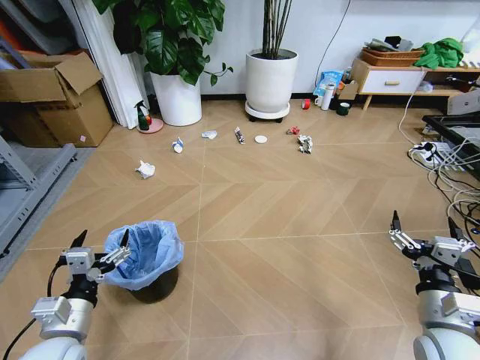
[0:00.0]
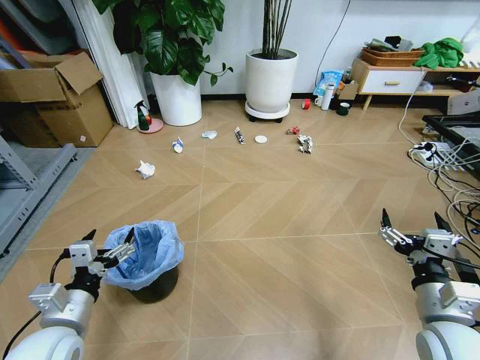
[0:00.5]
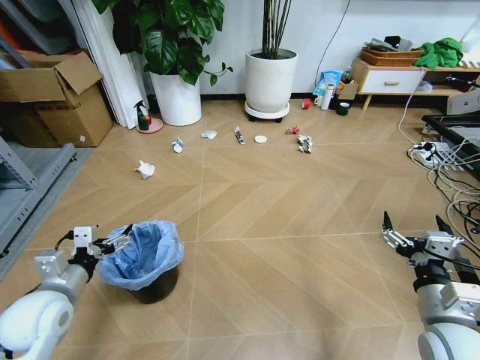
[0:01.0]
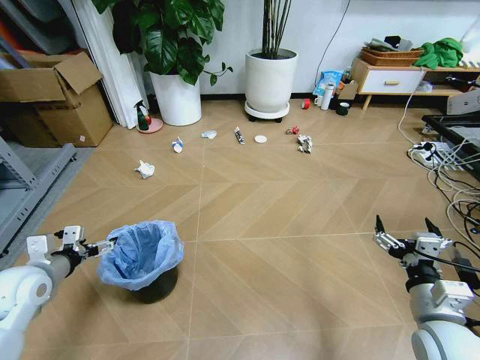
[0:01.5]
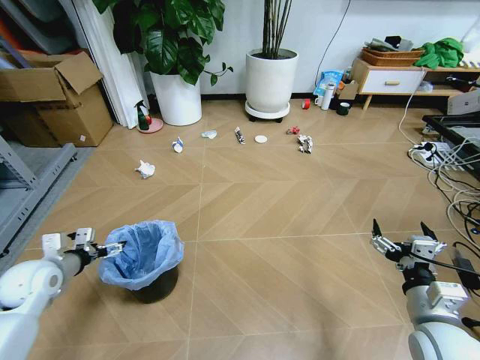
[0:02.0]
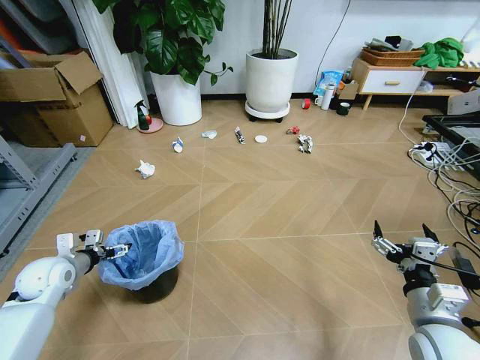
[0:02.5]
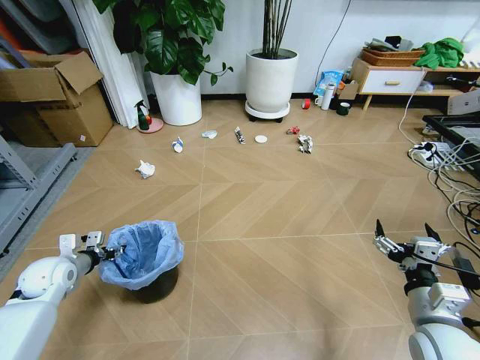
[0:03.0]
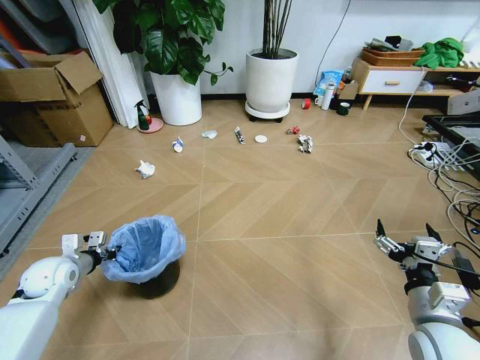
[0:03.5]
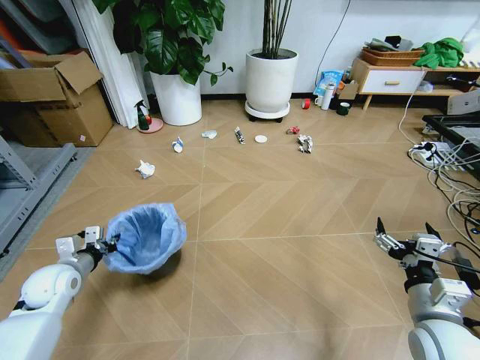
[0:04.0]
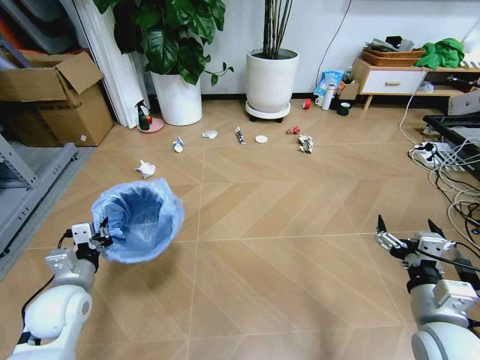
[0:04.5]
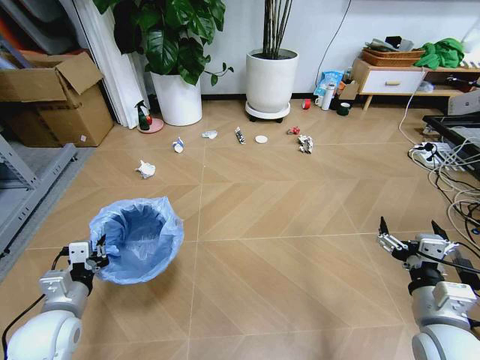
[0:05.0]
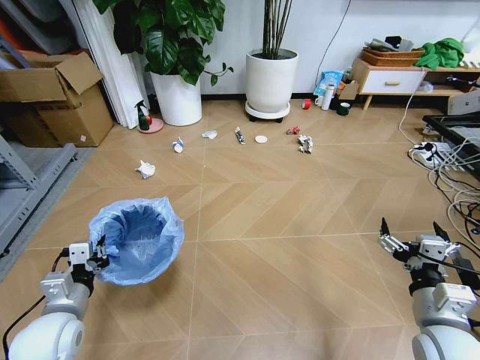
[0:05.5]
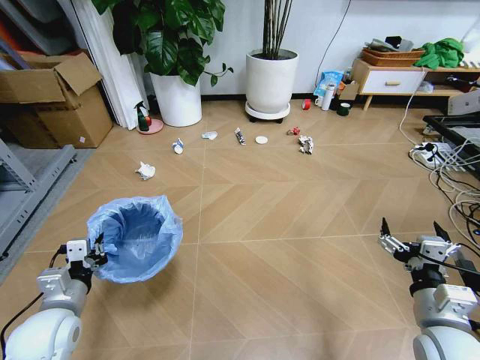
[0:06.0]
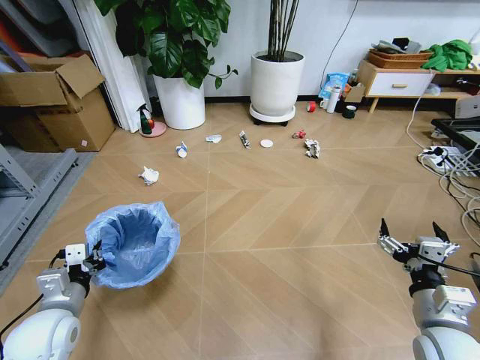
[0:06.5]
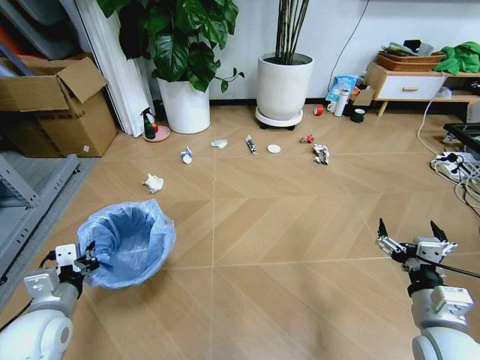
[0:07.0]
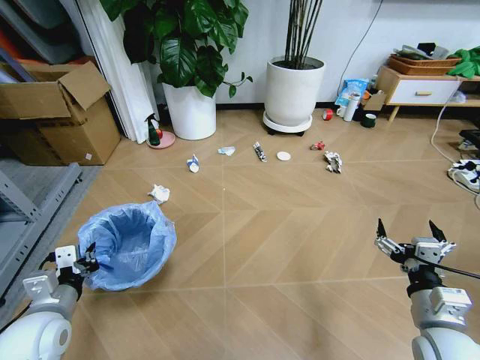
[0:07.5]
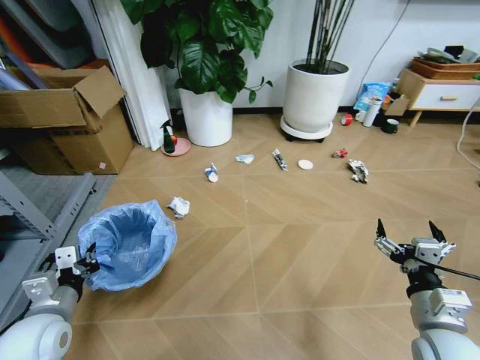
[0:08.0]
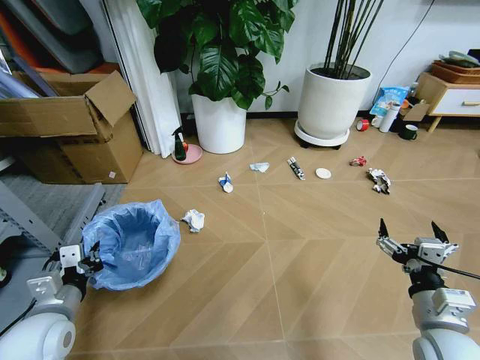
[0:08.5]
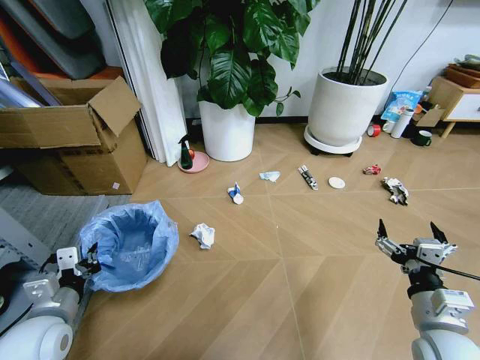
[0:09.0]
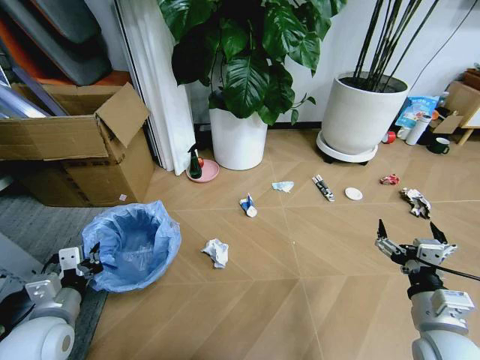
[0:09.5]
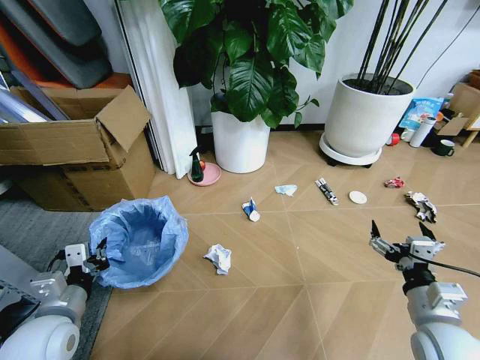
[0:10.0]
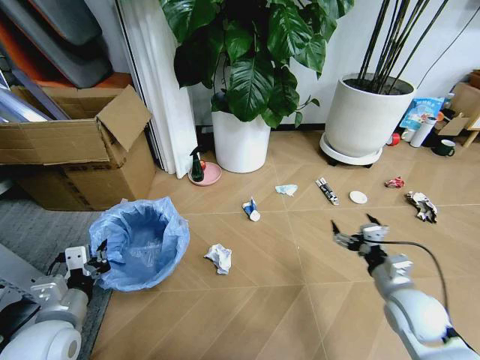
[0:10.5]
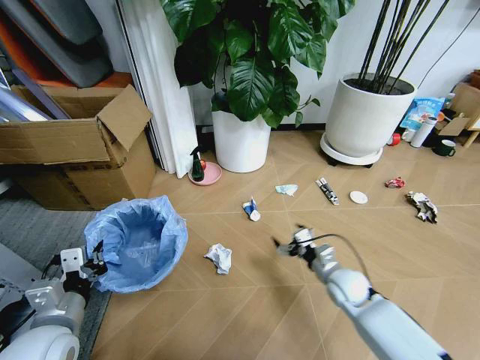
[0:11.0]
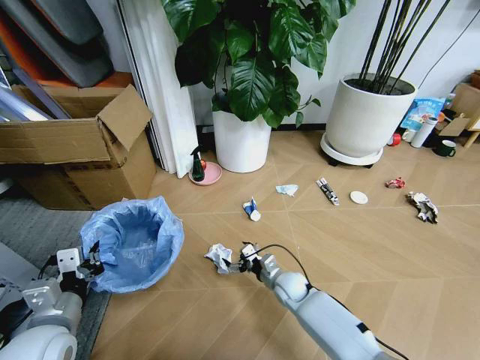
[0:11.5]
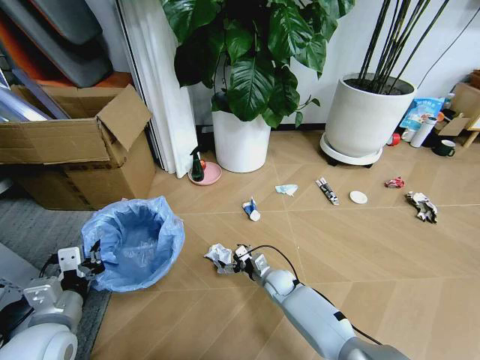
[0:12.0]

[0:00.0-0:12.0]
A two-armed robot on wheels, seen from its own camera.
Task of the whole recording: Pick up the trash bin and place the garbage on the floor into it.
0:02.0 to 0:04.0: The left gripper closes.
0:04.0 to 0:06.0: The left gripper goes roughly 15 cm backward and to the right.
0:10.0 to 0:12.0: The right gripper heads downward, forward and to the left, covering some 40 cm.

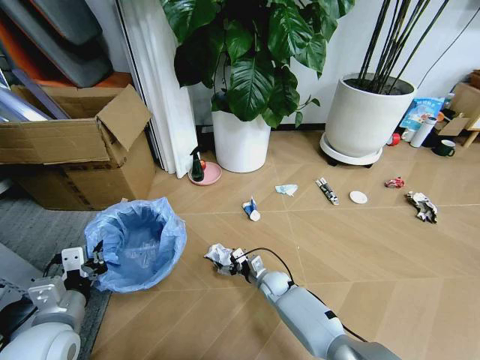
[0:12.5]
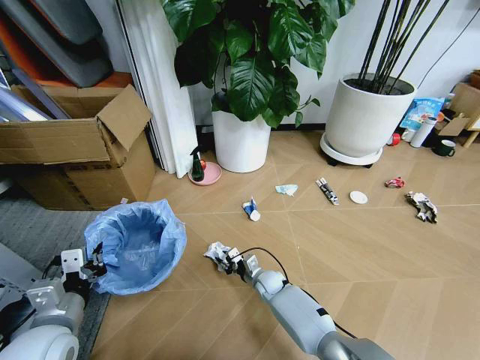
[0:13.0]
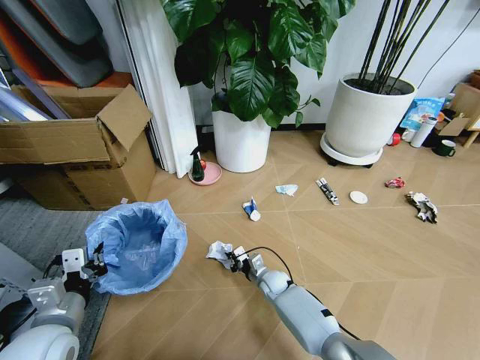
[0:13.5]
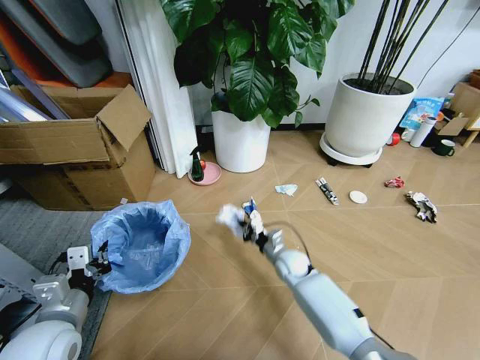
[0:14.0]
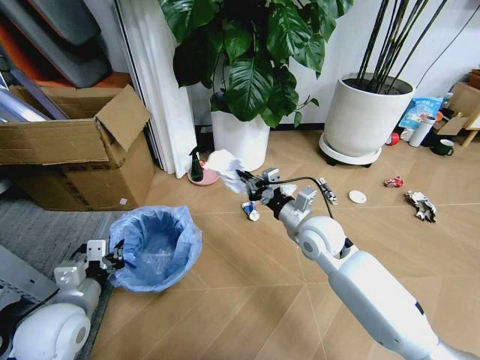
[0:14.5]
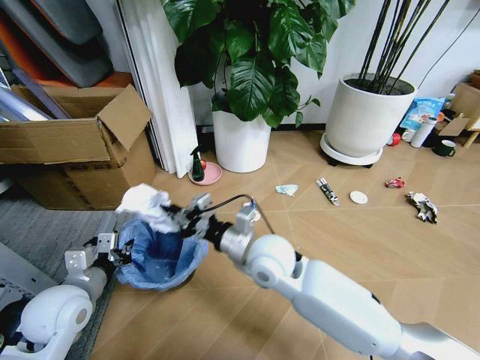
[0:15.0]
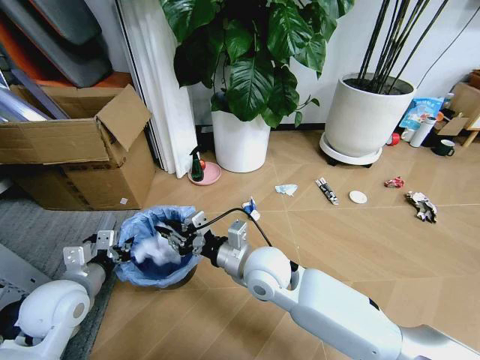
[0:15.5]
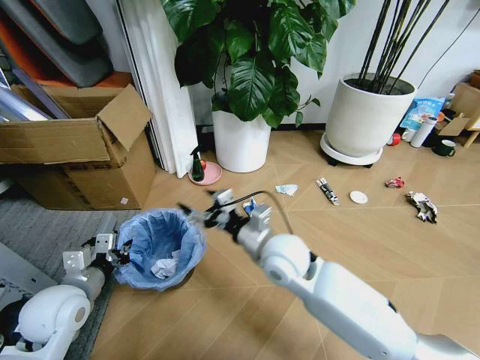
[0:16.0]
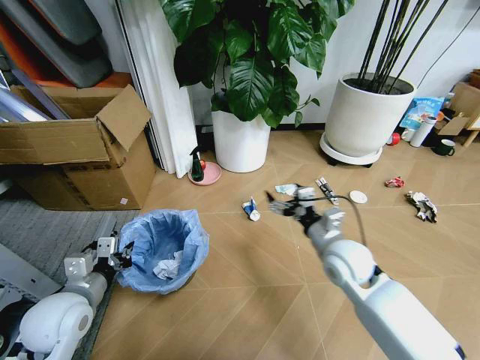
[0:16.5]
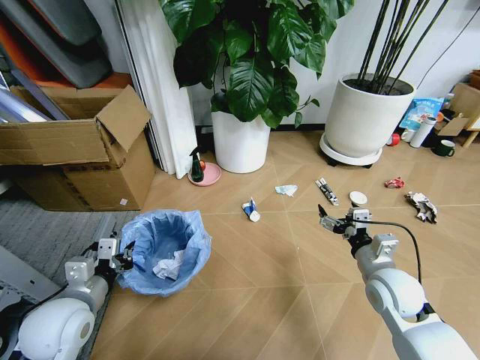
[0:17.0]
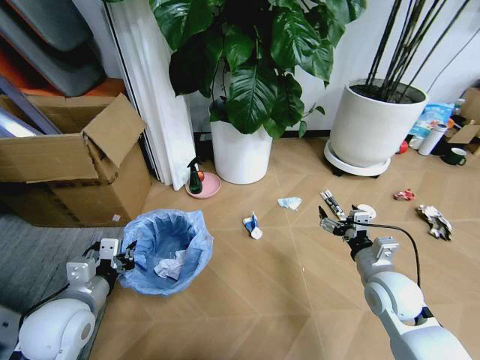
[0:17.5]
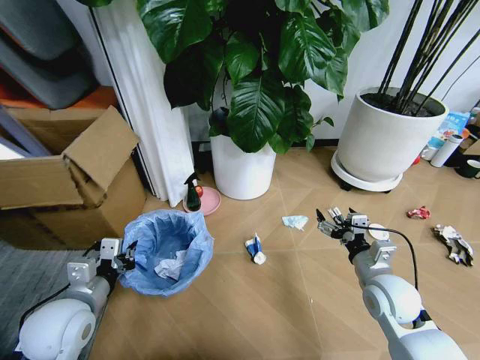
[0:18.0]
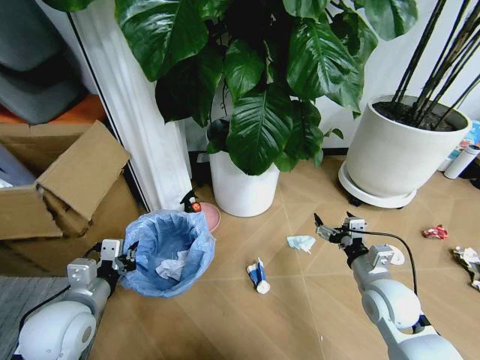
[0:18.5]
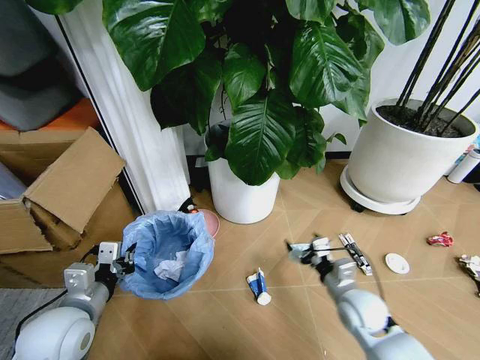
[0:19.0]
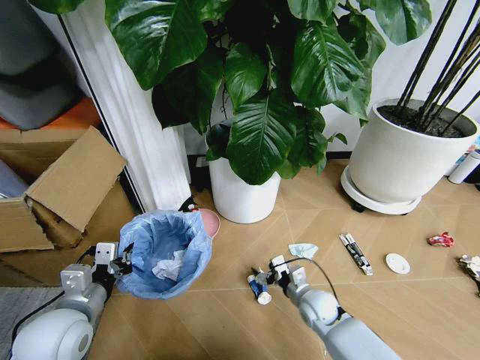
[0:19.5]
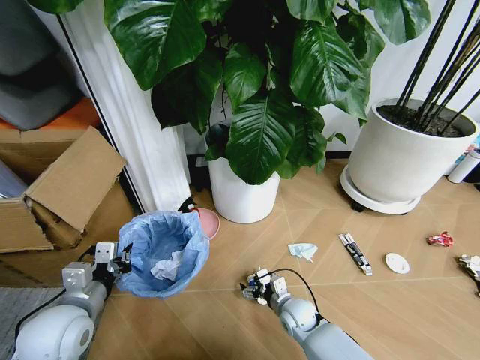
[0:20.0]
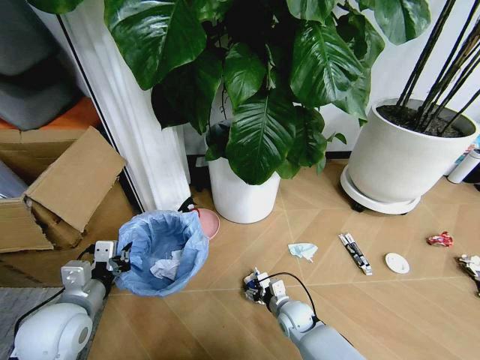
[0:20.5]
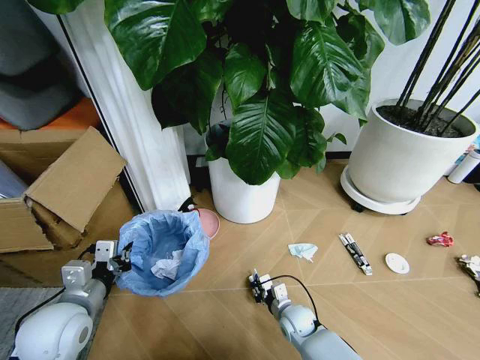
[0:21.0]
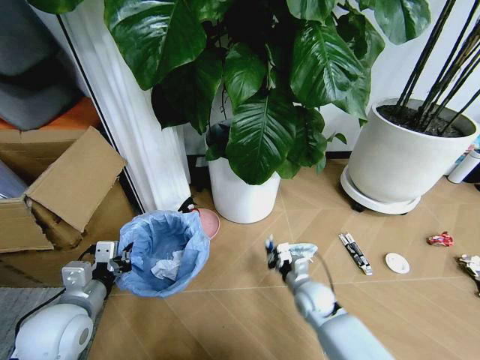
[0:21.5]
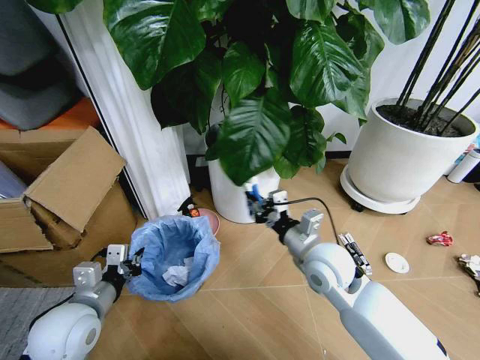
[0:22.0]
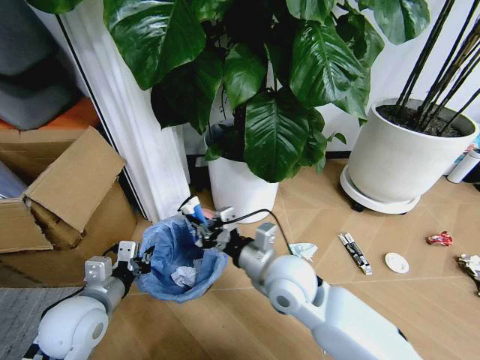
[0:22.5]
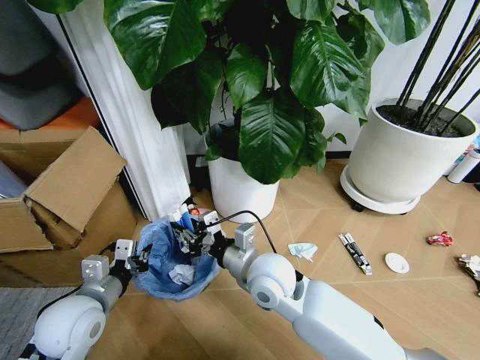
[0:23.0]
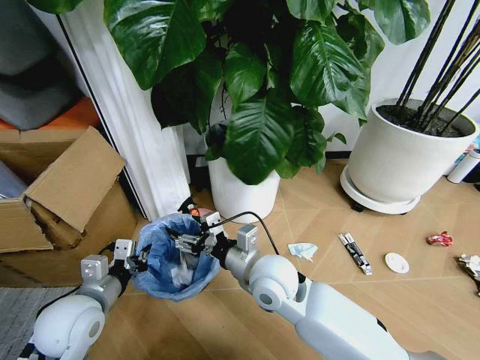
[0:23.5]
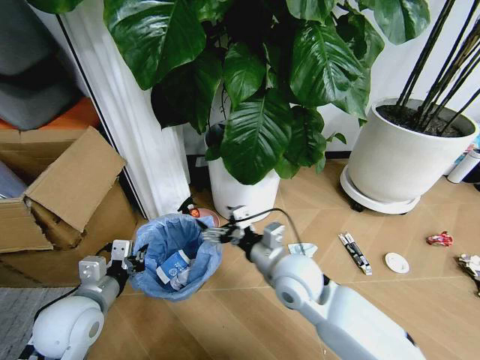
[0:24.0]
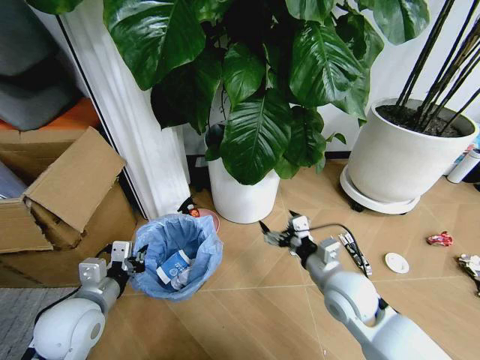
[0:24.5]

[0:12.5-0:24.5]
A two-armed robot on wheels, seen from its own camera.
Task of the whole recording: Pick up the trash bin and place the garbage on the floor into it.
0:12.5 to 0:14.5: The right gripper heads upward, covering about 30 cm, and closes.
0:14.5 to 0:16.5: The right gripper reaches some 10 cm to the left, then returns, and opens its fingers.
0:16.5 to 0:18.5: The right gripper moves to the right and backward, roughly 10 cm.
0:18.5 to 0:20.5: The right gripper heads downward and to the left, covering about 25 cm.
0:20.5 to 0:22.5: The right gripper travels upward by some 30 cm, and closes its fingers.
0:22.5 to 0:24.5: The right gripper goes approximately 15 cm to the right and downward, and opens up.

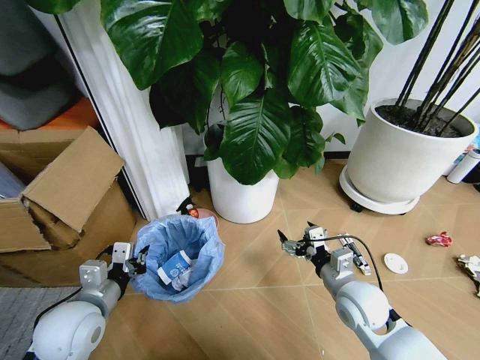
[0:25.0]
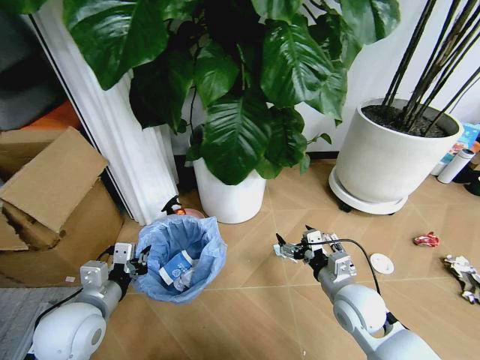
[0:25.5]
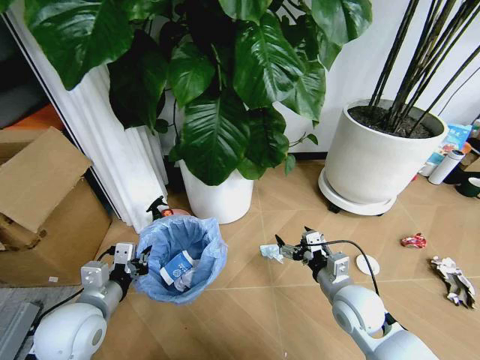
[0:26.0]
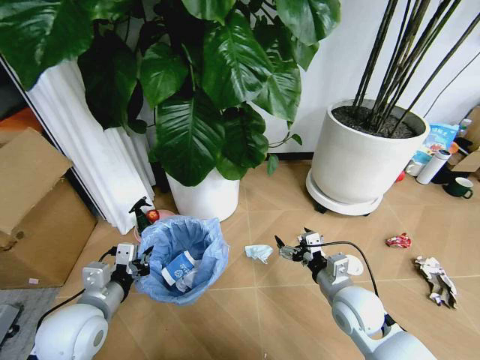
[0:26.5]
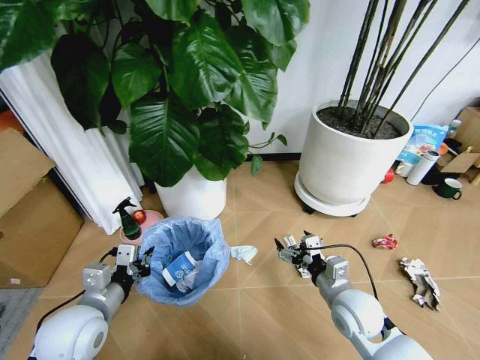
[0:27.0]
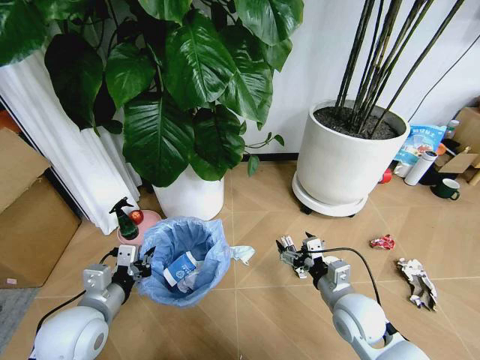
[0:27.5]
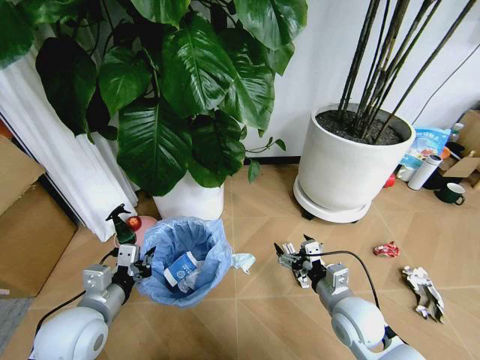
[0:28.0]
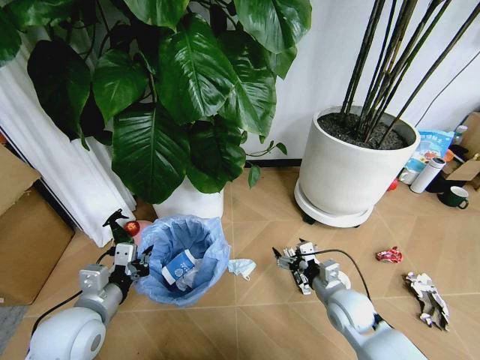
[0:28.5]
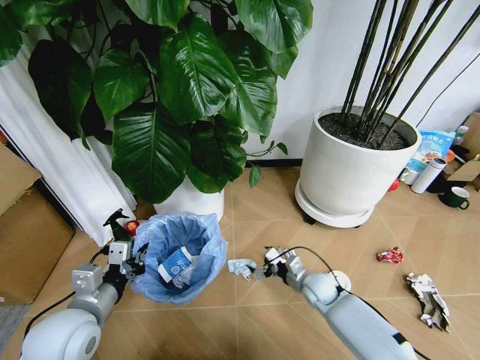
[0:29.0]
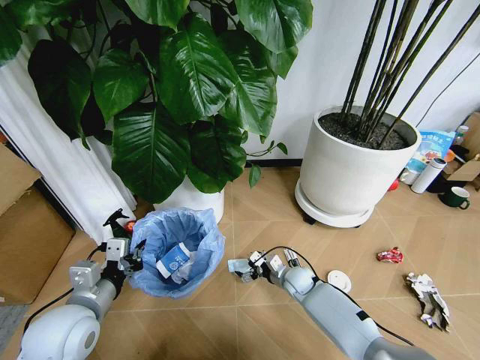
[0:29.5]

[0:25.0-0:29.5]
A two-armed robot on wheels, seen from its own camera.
Task of the whole recording: Pick up the trash bin and place the garbage on the floor into it.
0:27.0 to 0:29.5: The right gripper shifts some 20 cm downward and forward.
